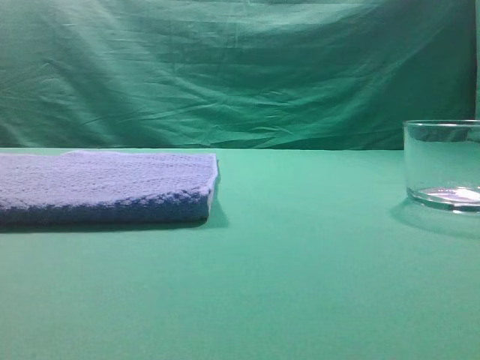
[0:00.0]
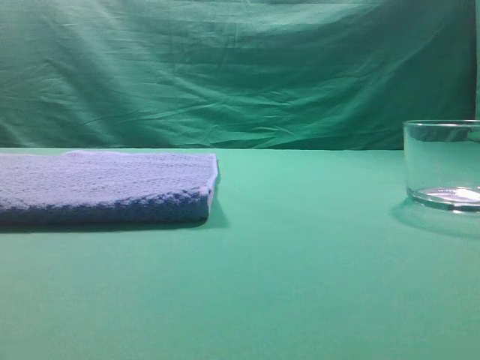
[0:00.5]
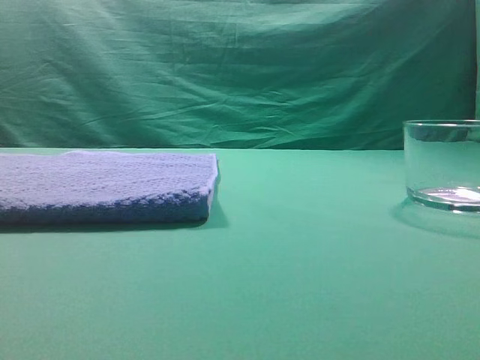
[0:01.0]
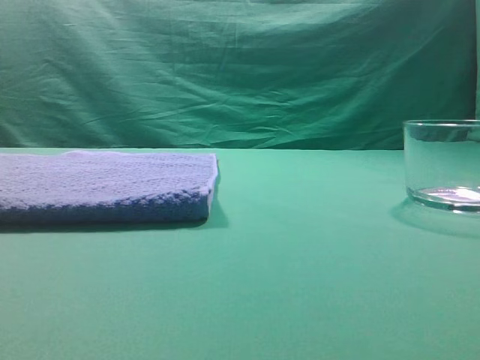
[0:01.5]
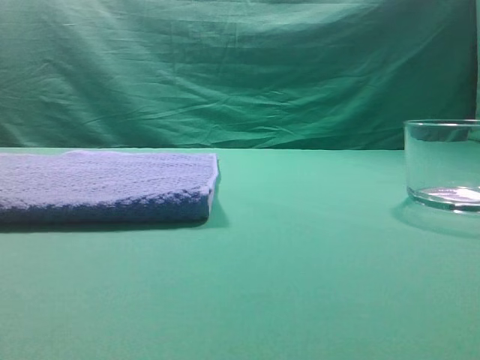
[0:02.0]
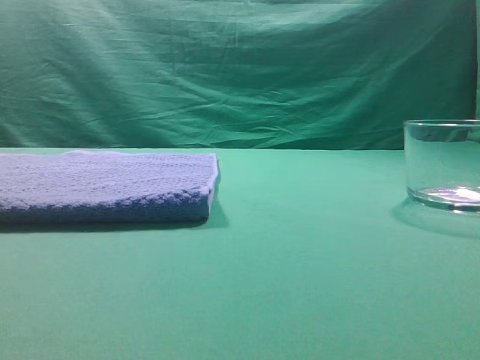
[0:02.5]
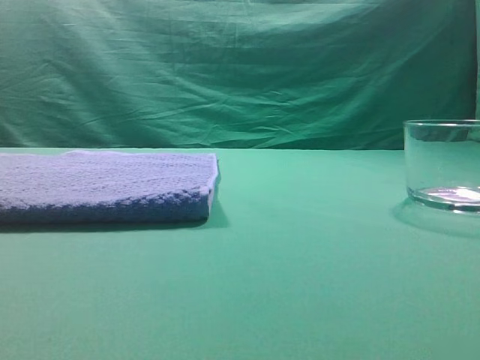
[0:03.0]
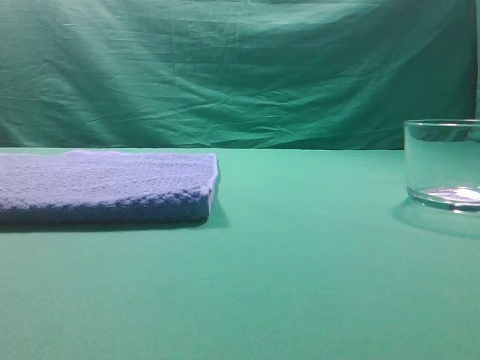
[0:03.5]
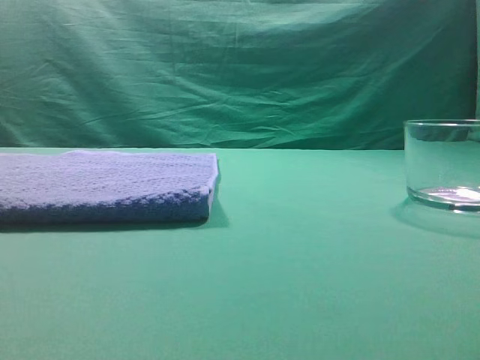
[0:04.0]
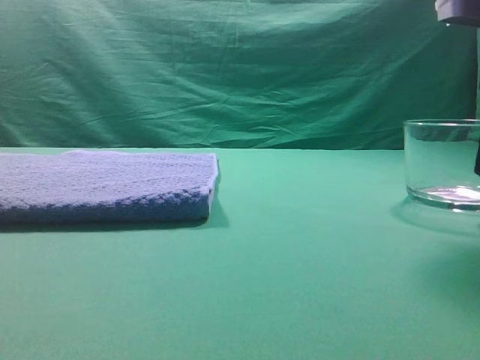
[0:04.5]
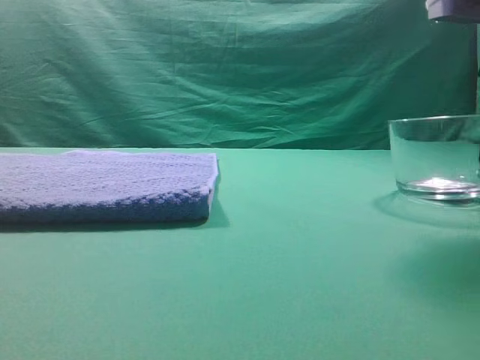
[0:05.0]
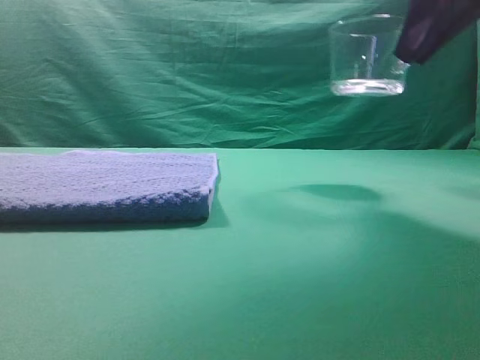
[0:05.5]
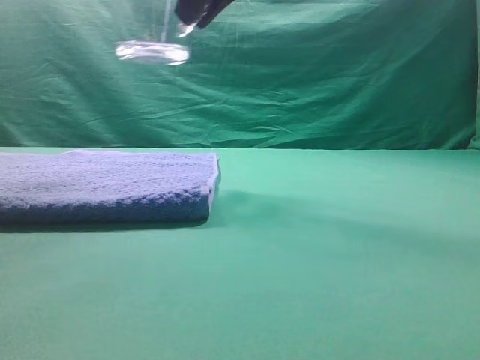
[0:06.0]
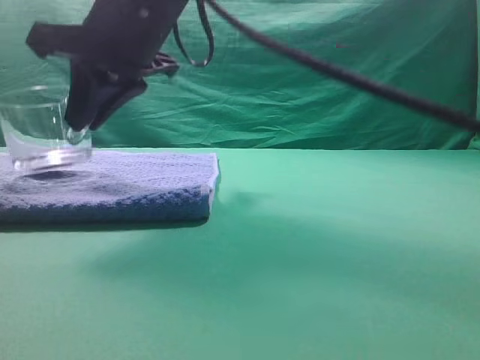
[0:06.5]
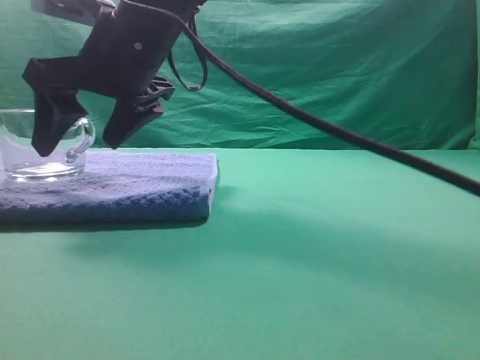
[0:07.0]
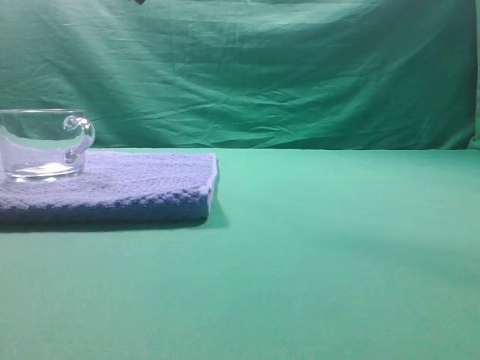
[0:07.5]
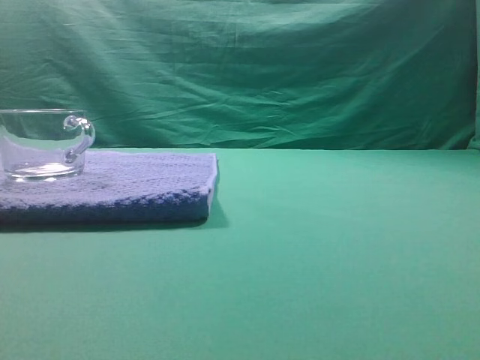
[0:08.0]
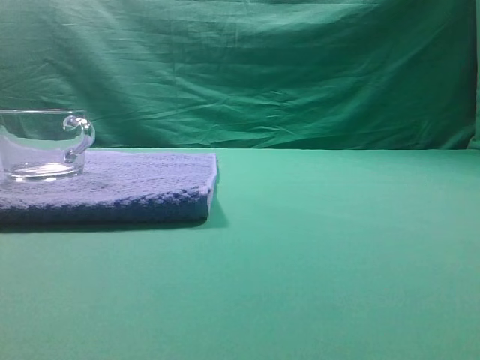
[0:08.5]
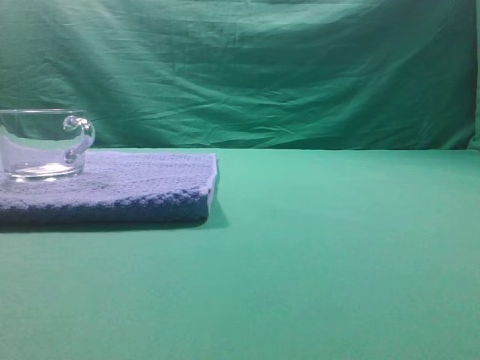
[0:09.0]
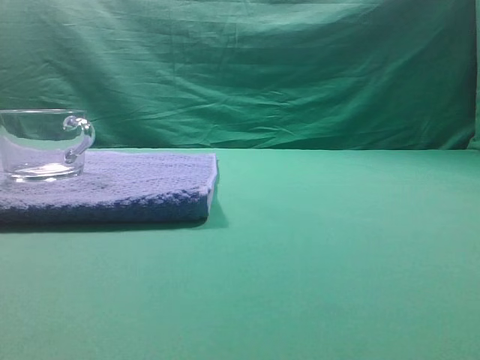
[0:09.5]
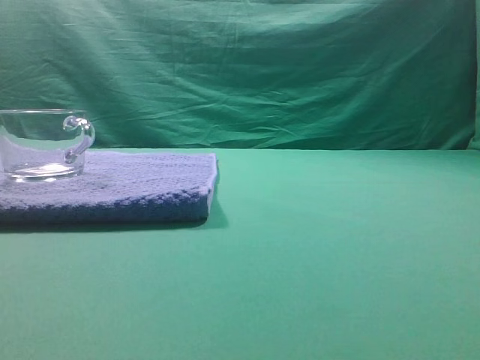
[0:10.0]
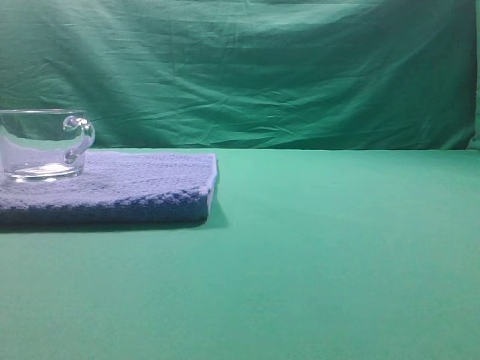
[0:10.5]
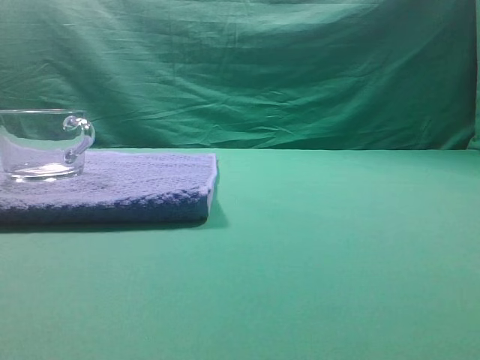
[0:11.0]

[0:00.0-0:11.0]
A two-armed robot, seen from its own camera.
Task of the whole recording: grasp the transparent glass cup and place it within the blue towel.
Step, 0:00.0 to 0:05.0: Grasp the transparent glass cup.
Step, 0:05.5 to 0:07.0: Place the glass cup on the blue zone.

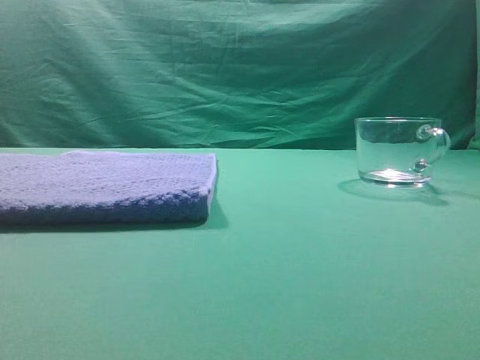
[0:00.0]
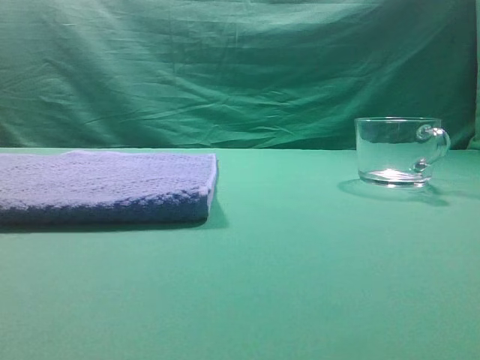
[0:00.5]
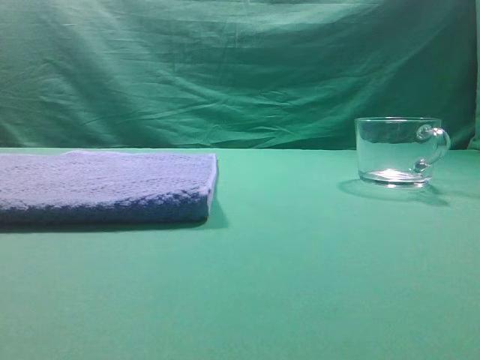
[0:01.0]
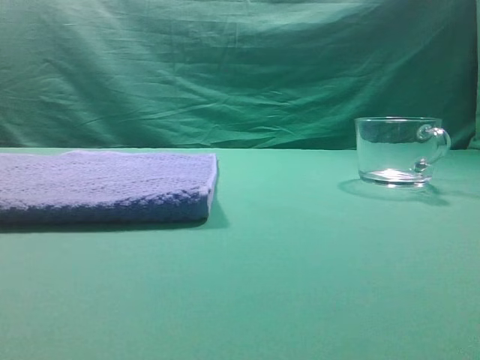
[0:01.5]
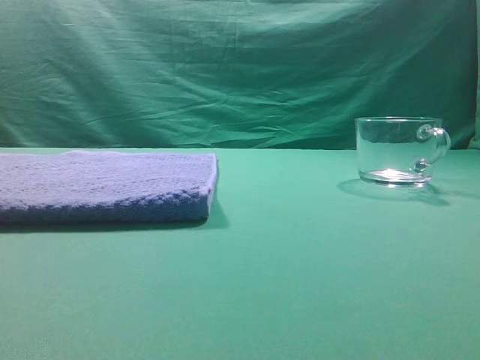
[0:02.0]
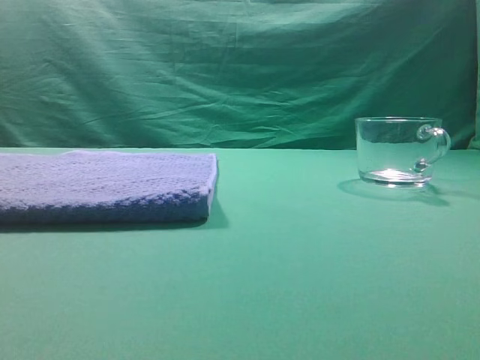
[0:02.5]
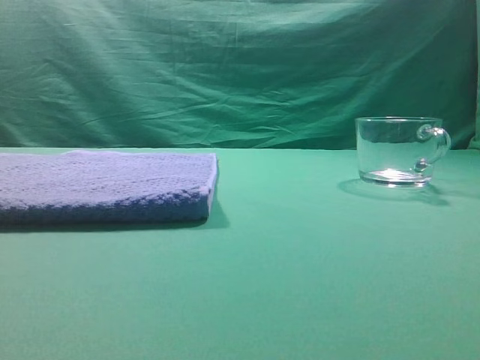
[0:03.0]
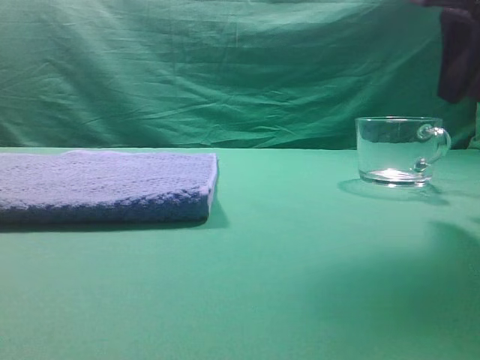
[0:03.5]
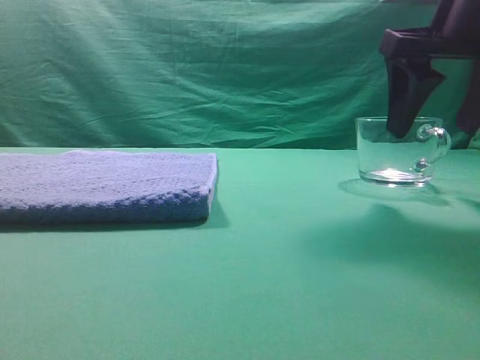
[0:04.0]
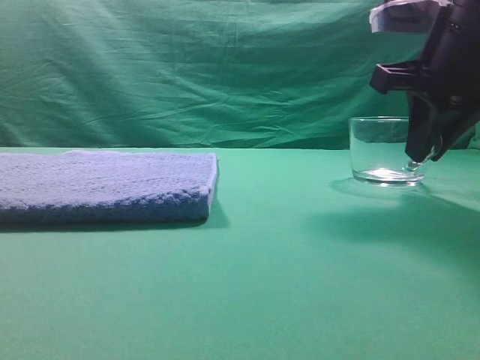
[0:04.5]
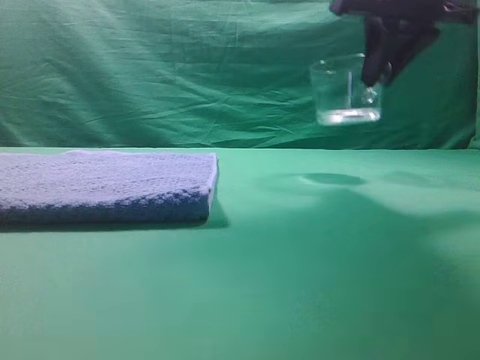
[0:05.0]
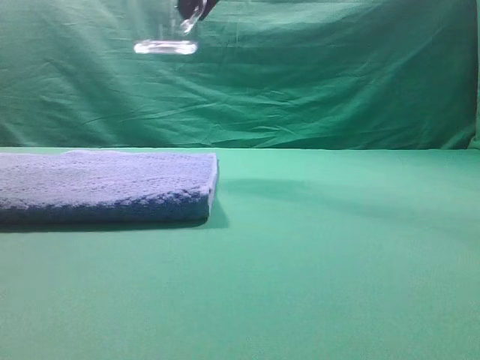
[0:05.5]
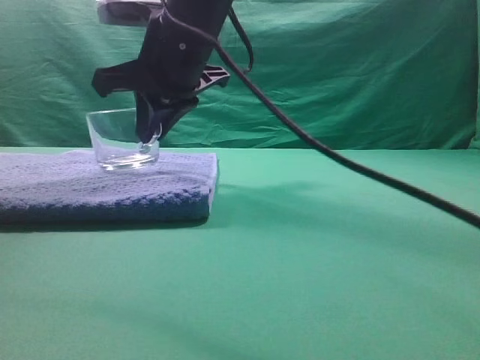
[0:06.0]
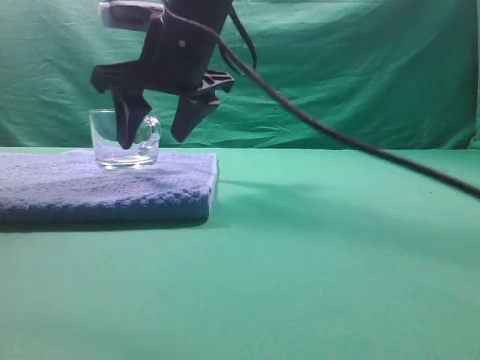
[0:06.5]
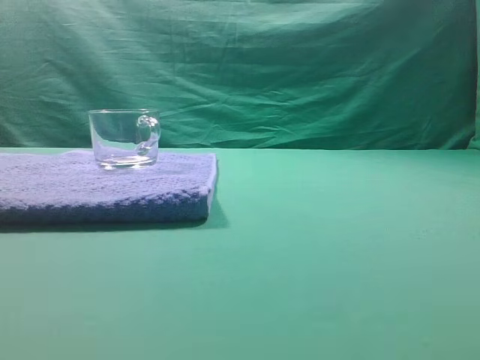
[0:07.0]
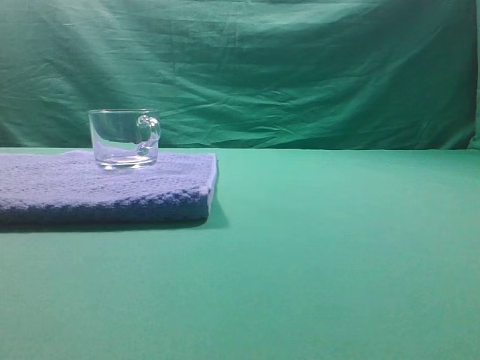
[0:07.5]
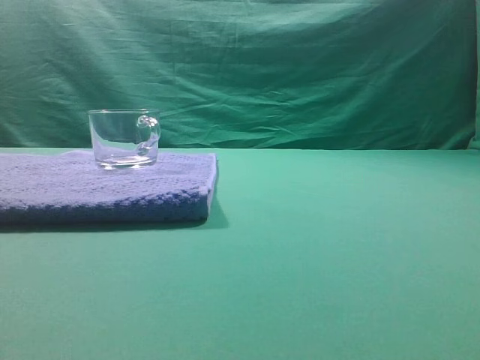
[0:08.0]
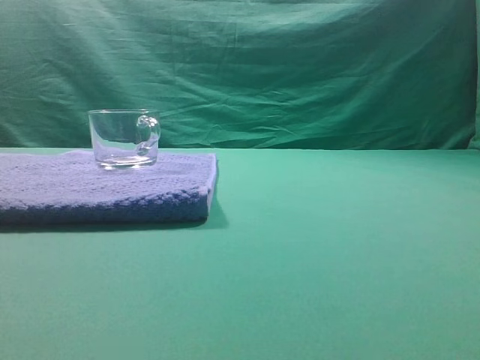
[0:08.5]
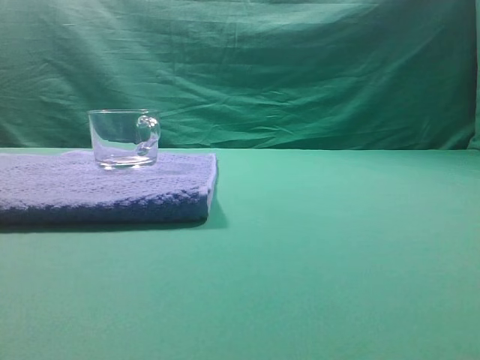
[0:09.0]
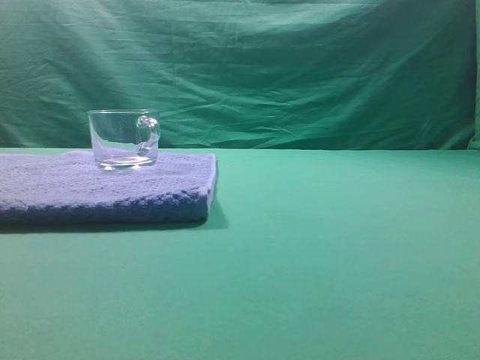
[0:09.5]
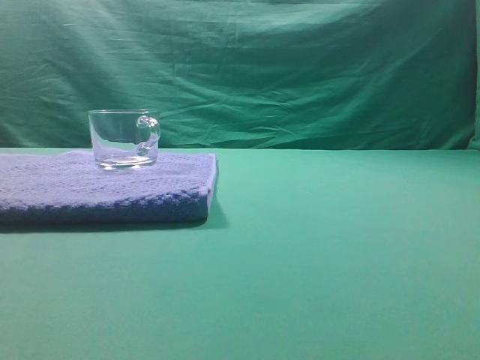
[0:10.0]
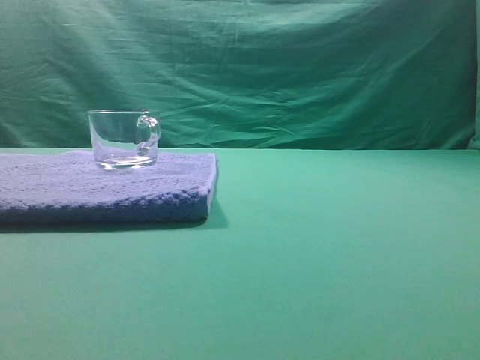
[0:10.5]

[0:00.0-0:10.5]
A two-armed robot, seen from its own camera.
Task of the whole recording: grasp the transparent glass cup and place it within the blue towel.
Step, 0:00.0 to 0:04.5: Grasp the transparent glass cup.
Step, 0:05.0 to 0:06.5: Place the glass cup on the blue zone.

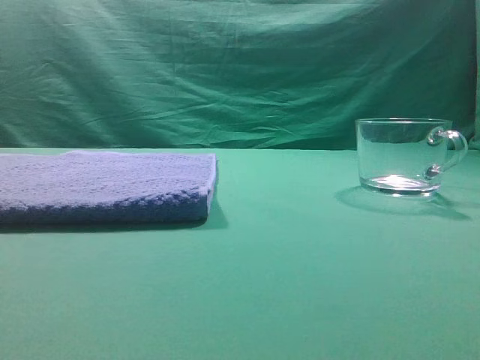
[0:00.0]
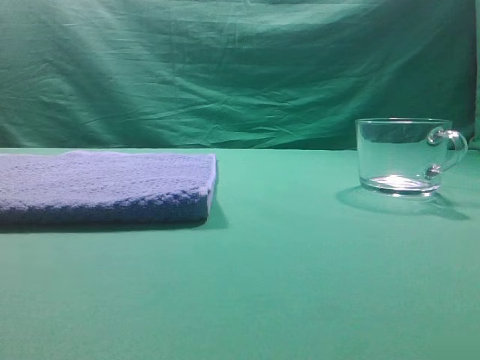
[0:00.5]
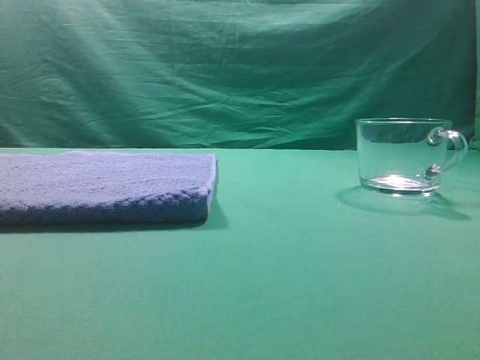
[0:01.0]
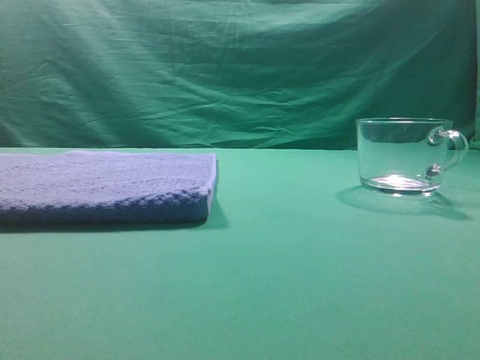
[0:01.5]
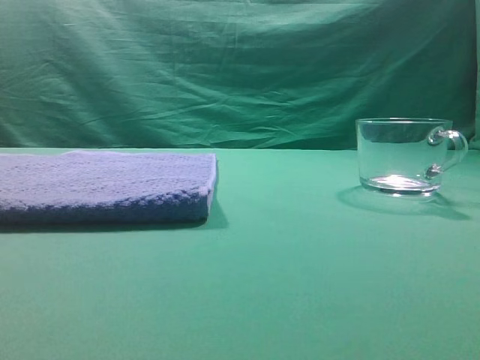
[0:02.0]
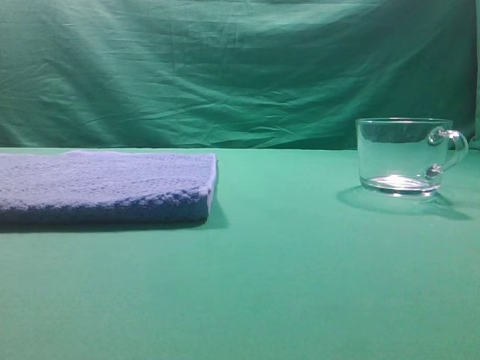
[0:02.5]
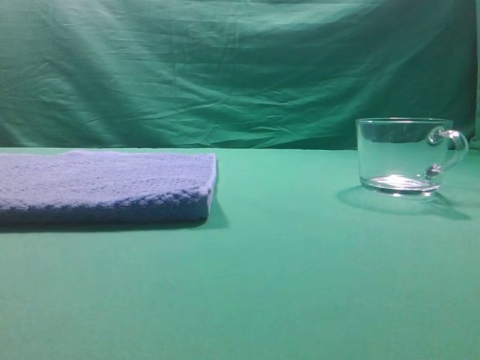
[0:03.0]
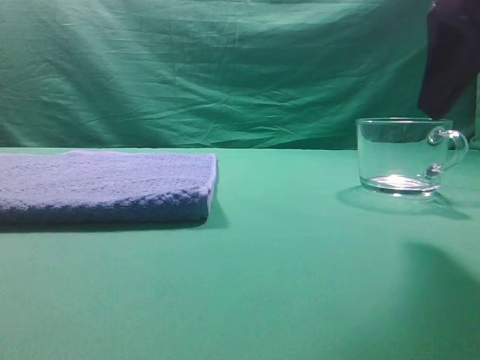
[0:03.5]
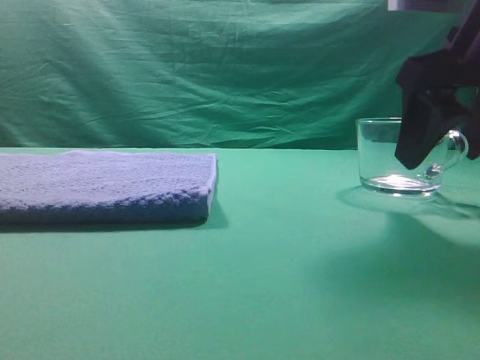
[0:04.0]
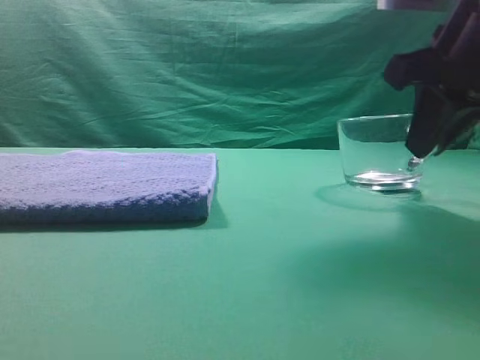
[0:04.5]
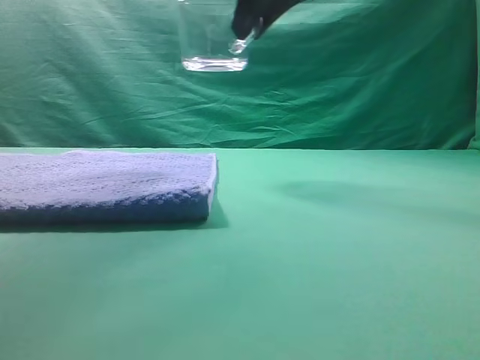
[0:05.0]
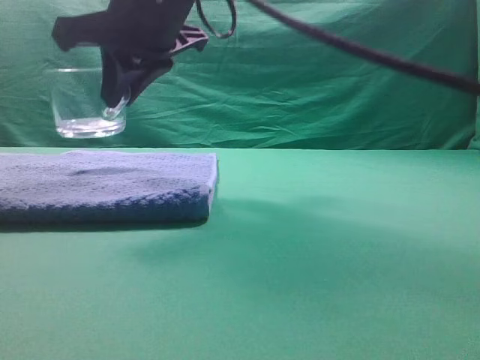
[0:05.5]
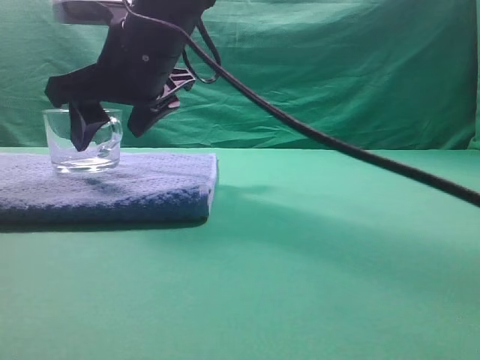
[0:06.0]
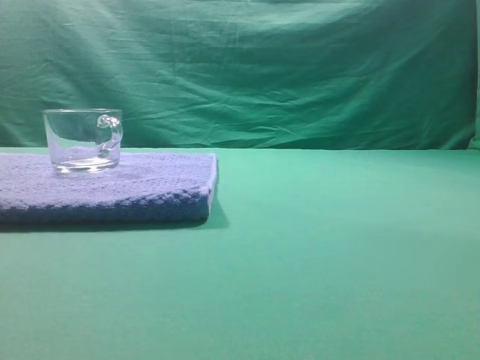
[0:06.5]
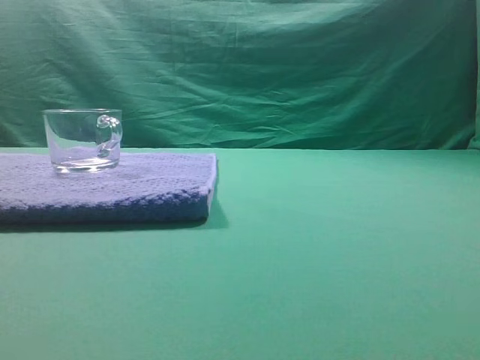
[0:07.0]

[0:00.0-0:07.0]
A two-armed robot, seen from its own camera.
Task of the whole recording: grasp the transparent glass cup and place it within the blue towel.
Step, 0:00.0 to 0:03.5: Grasp the transparent glass cup.
Step, 0:04.0 to 0:06.0: Place the glass cup on the blue zone.
